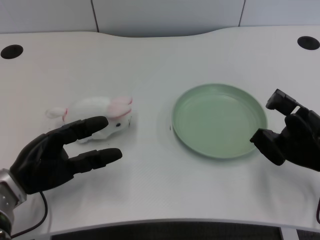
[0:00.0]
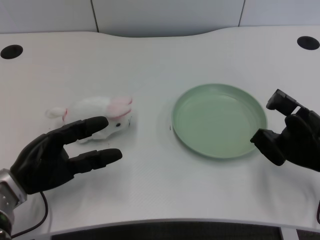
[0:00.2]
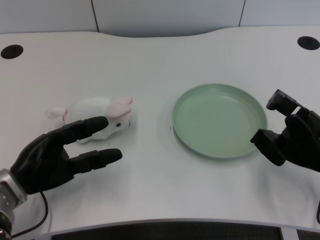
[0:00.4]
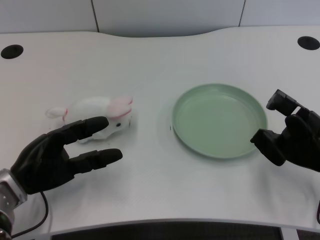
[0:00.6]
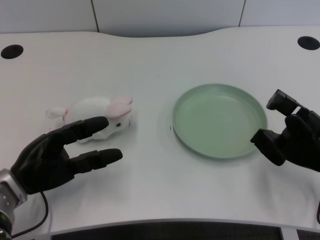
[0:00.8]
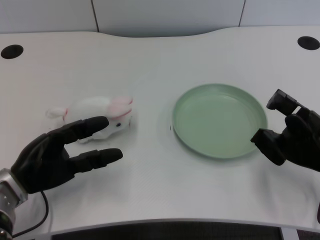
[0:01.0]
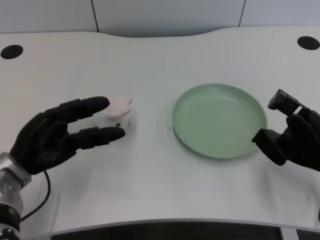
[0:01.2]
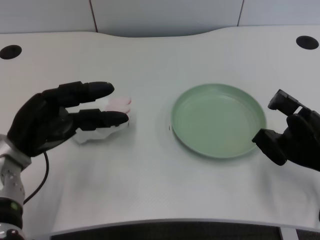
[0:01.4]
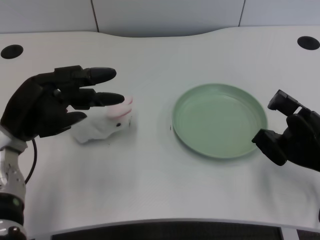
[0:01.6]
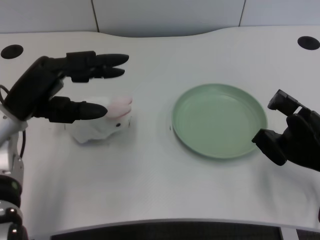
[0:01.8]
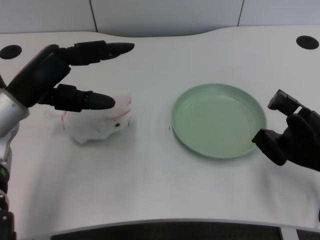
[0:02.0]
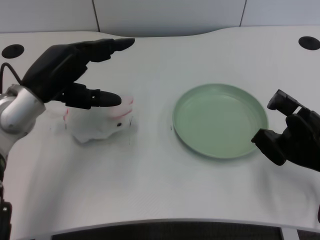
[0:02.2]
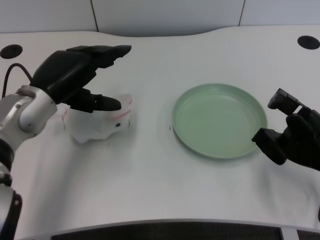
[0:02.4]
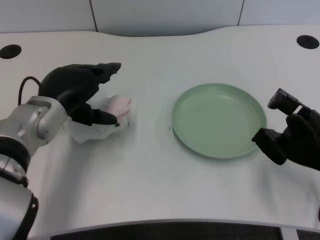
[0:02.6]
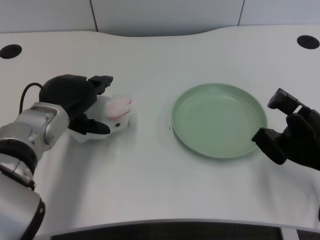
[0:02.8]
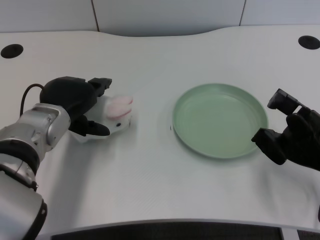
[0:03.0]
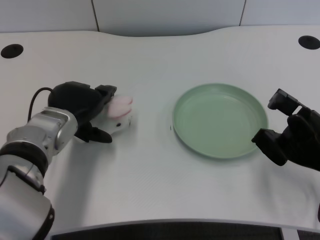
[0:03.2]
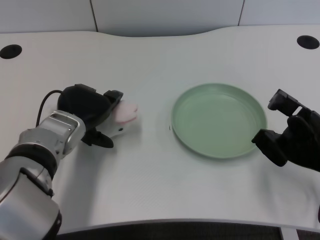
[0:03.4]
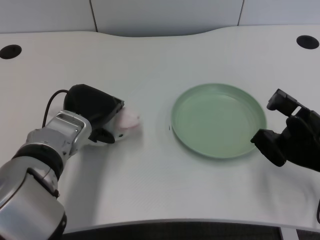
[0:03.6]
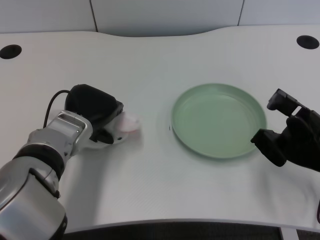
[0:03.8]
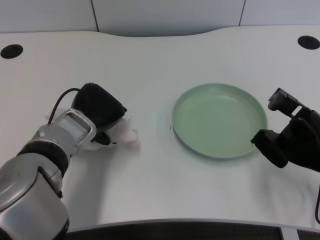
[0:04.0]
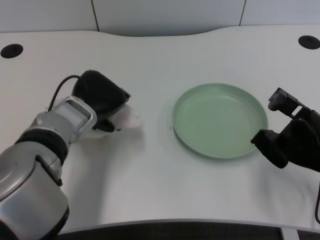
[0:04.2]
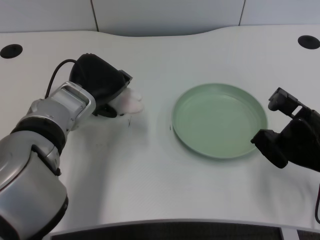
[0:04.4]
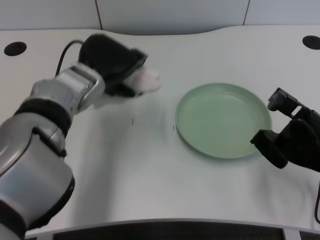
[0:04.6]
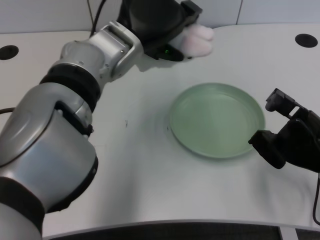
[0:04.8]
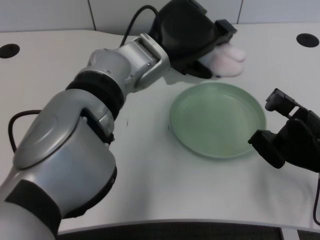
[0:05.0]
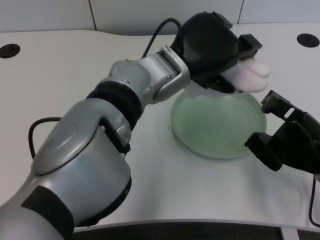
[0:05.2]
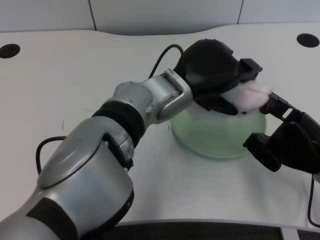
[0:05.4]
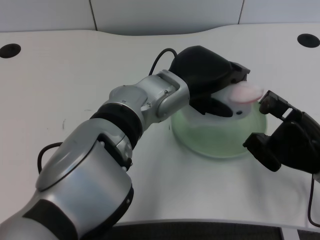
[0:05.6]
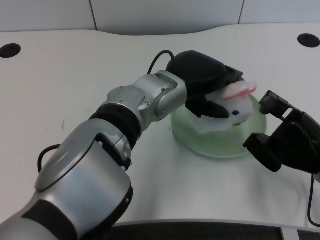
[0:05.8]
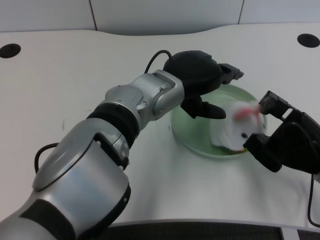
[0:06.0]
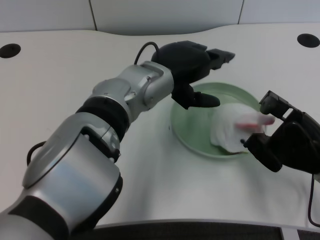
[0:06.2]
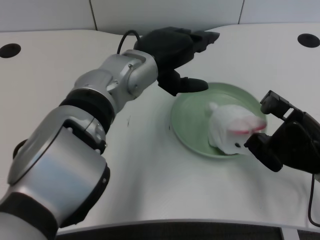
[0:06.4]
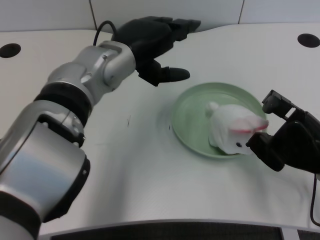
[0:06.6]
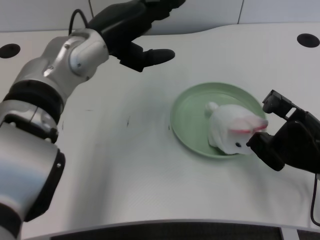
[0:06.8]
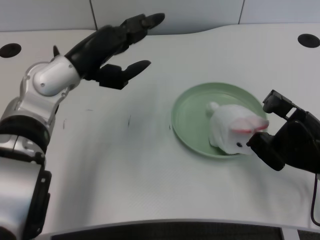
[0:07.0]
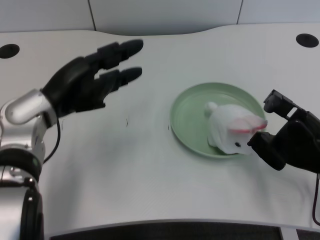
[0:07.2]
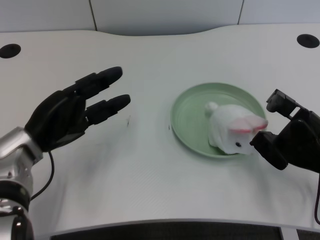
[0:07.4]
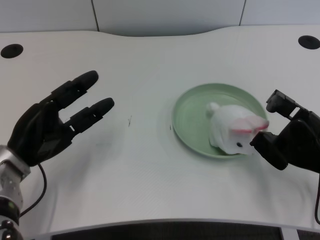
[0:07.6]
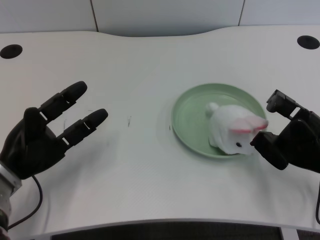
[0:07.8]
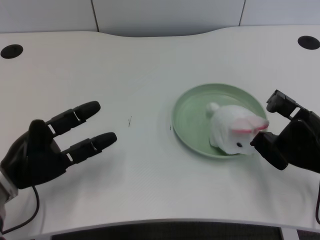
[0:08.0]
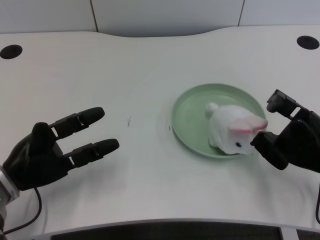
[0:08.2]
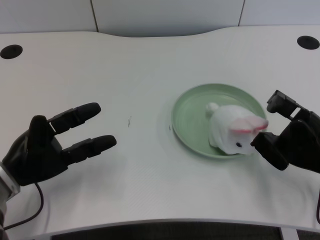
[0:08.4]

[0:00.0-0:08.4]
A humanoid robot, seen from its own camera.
Task of the whole recording: pick up the rabbit doll from the table and place it on the plate.
Step, 0:01.0 to 0:04.2: Grasp the rabbit doll with the left gripper.
Step, 0:04.4 to 0:06.0: Place the rabbit doll into the plate with the left gripper.
0:01.4 to 0:02.8: The left hand shifts approximately 5 cm to the right.
0:04.2 to 0:05.6: The left hand travels to the right and upward by approximately 15 cm.
0:05.6 to 0:07.0: The left hand goes roughly 15 cm to the left.
0:07.0 to 0:08.4: The left hand heads downward, to the left and backward, covering about 20 cm.

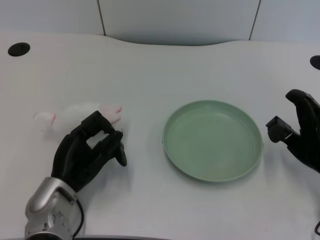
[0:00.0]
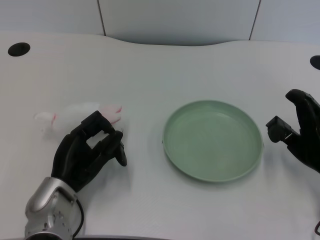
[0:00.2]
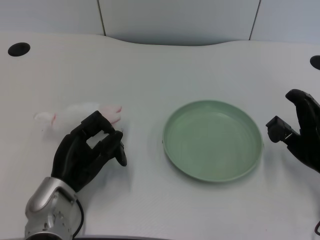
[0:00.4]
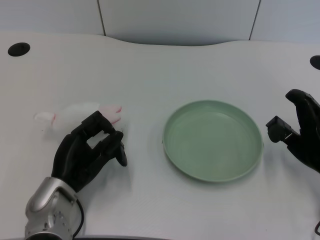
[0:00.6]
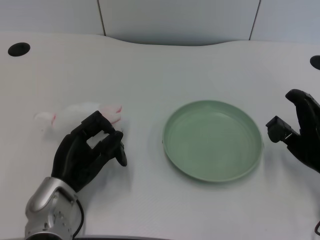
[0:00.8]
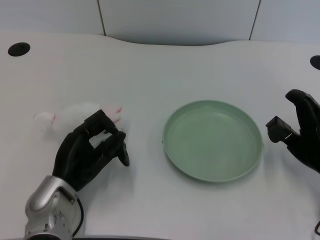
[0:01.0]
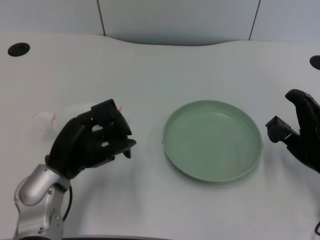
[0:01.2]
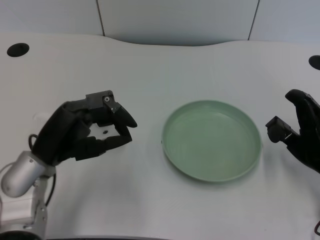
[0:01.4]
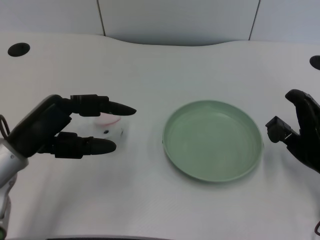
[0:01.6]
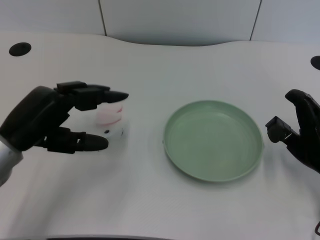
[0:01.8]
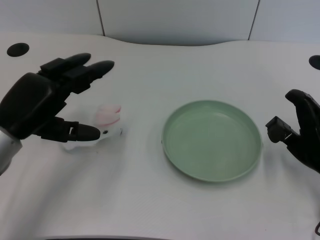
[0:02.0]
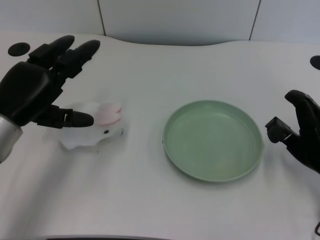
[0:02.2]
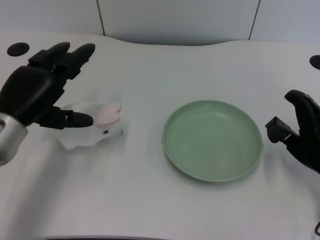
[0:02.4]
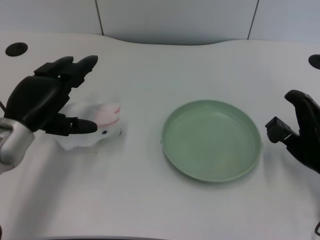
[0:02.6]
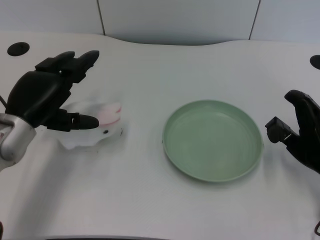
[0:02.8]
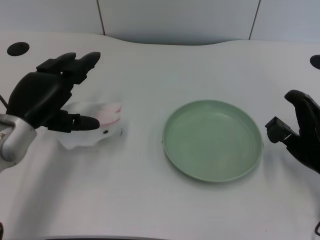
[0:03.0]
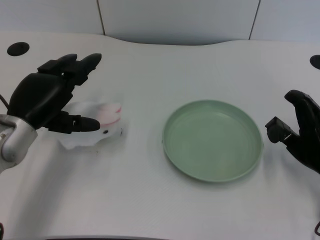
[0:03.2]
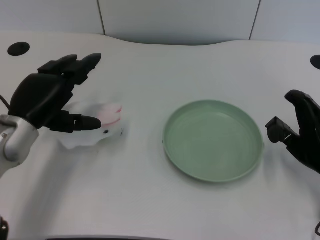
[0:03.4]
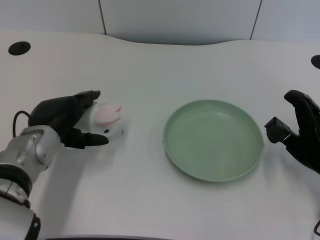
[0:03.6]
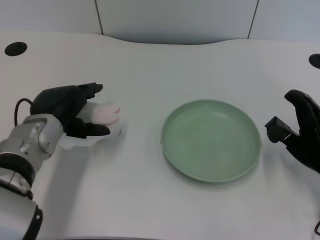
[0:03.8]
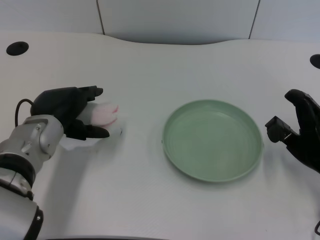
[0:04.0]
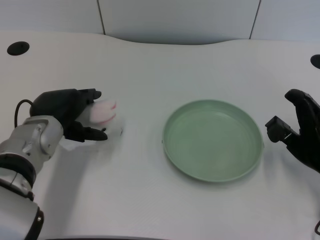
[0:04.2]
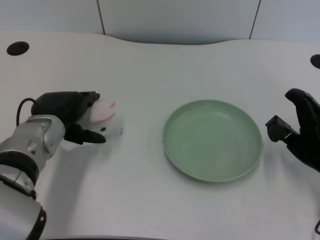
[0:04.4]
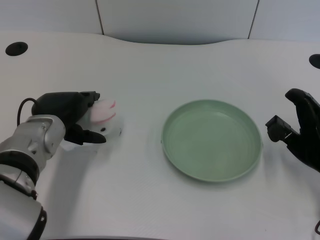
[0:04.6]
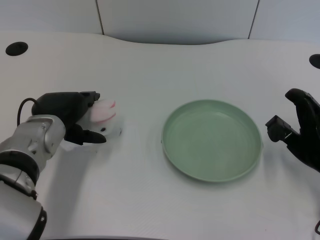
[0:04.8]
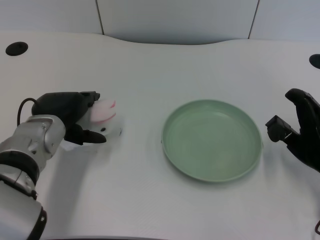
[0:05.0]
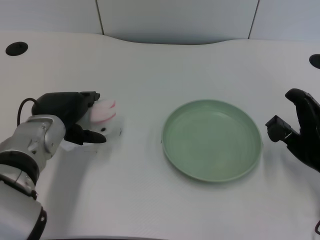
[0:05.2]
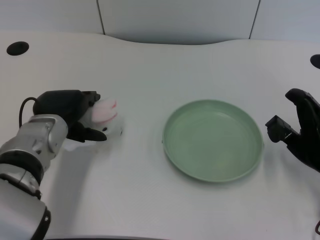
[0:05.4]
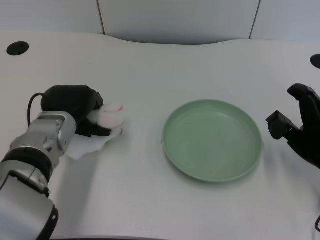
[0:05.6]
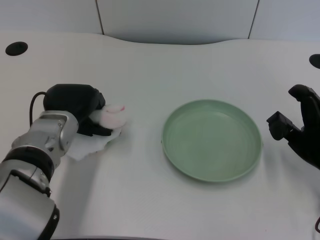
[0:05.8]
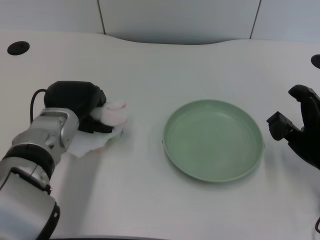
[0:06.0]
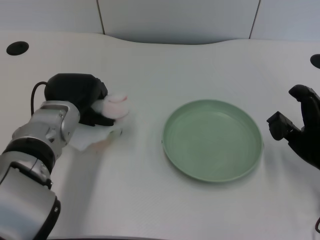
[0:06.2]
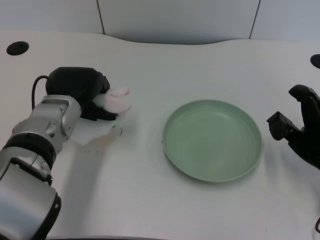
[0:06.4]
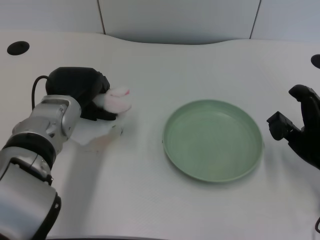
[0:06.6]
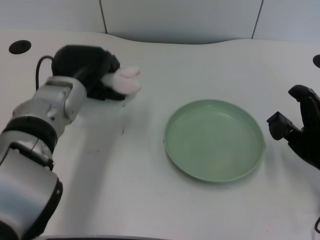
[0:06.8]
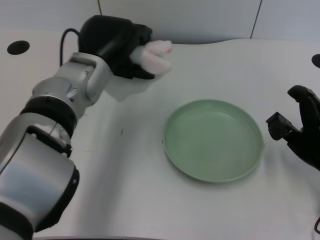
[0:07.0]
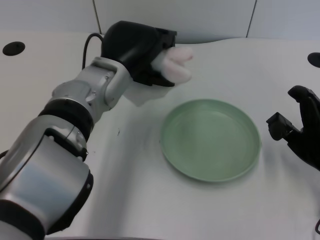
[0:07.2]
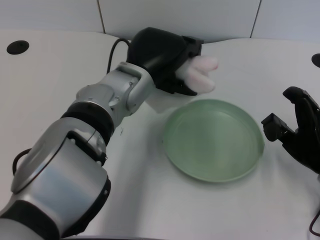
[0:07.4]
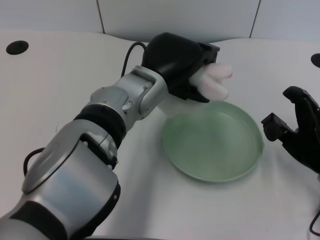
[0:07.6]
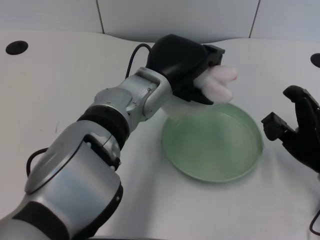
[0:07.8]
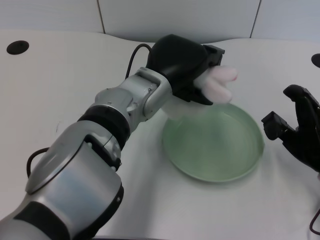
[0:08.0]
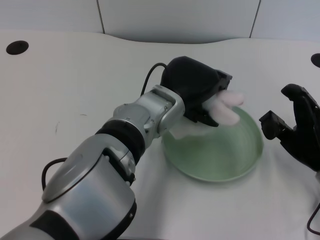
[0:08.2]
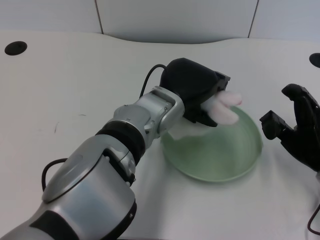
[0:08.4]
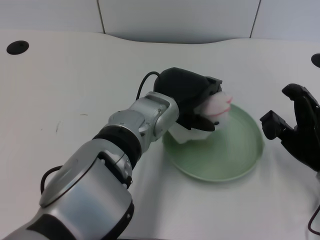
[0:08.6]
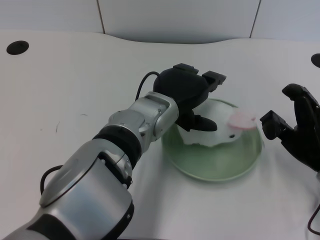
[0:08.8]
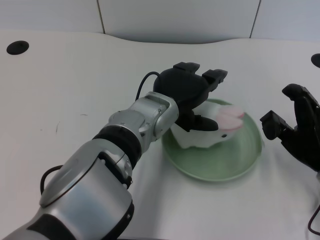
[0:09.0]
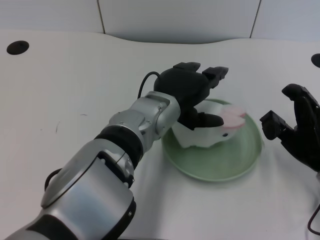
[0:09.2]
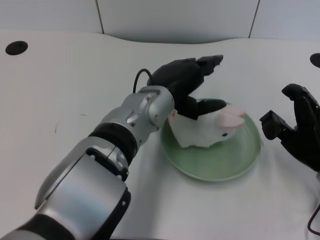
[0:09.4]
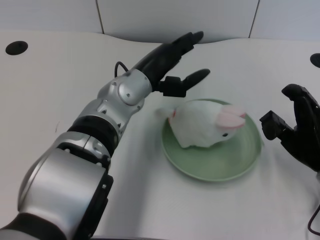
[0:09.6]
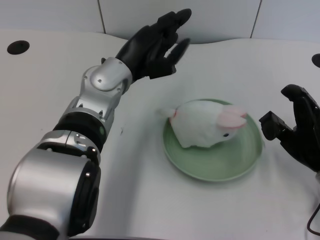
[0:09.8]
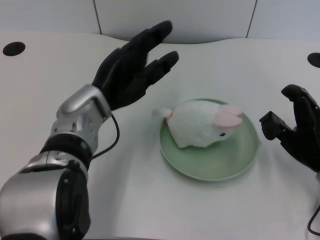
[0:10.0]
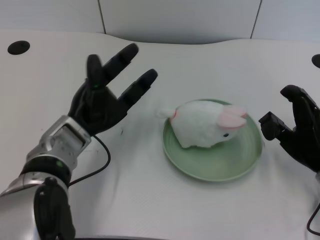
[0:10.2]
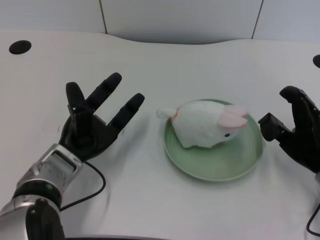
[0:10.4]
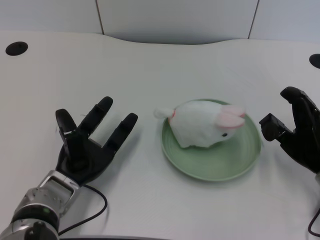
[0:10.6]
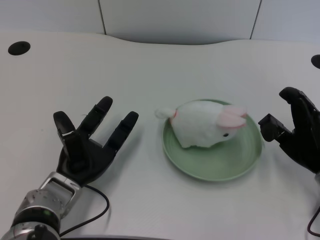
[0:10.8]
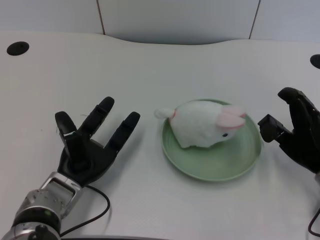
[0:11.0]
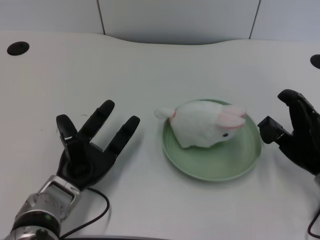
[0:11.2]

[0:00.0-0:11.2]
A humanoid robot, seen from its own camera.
Task of the whole recording: pick up the rabbit doll from the table and place it on the plate.
Step, 0:01.2 to 0:06.2: Grasp the rabbit doll with the left gripper.
Step, 0:06.4 to 0:09.0: Place the rabbit doll into the plate with the left gripper.
0:01.6 to 0:03.2: The left hand is displaced forward by roughly 5 cm.
0:04.8 to 0:06.4: The hands make only small movements.
0:06.4 to 0:08.0: The left hand goes some 15 cm to the right.
0:09.6 to 0:11.2: The left hand is displaced downward, to the left and backward by approximately 20 cm.

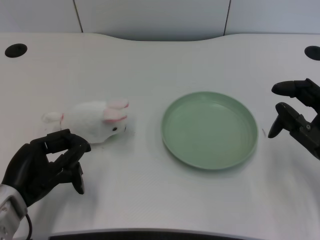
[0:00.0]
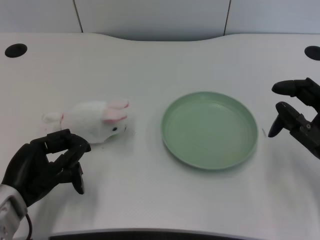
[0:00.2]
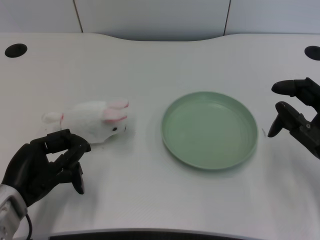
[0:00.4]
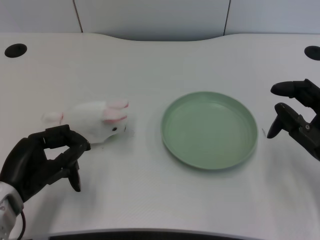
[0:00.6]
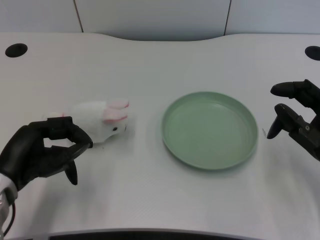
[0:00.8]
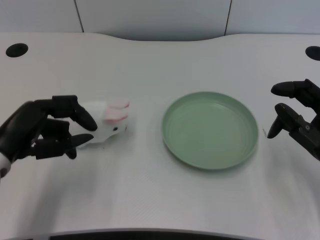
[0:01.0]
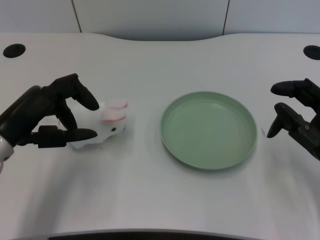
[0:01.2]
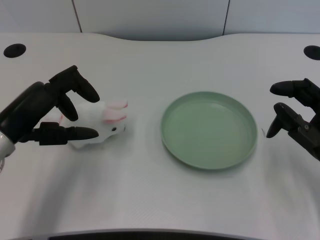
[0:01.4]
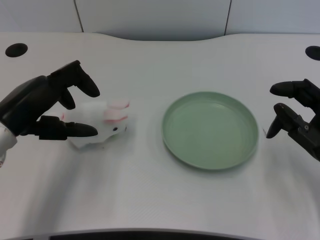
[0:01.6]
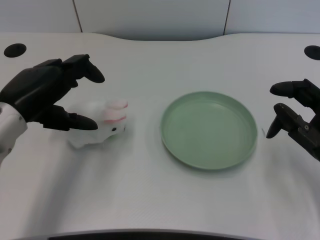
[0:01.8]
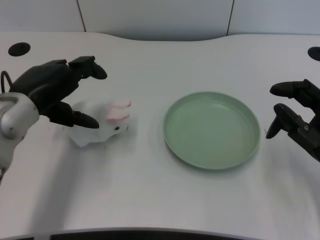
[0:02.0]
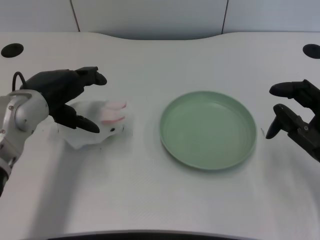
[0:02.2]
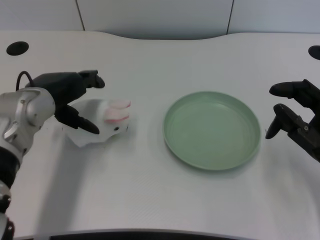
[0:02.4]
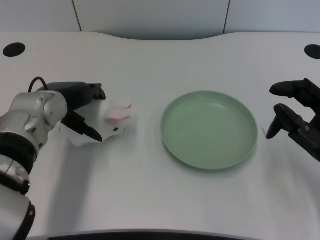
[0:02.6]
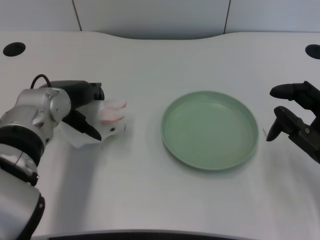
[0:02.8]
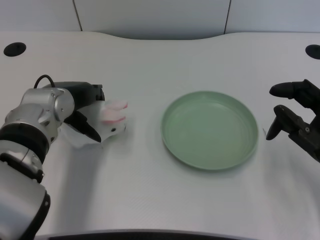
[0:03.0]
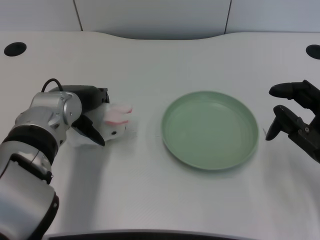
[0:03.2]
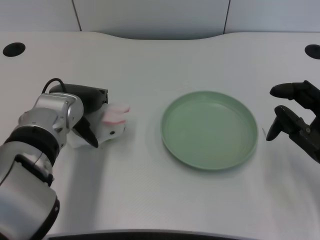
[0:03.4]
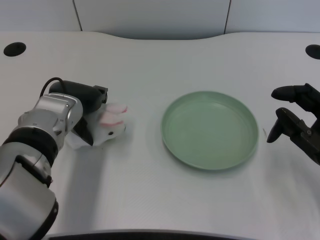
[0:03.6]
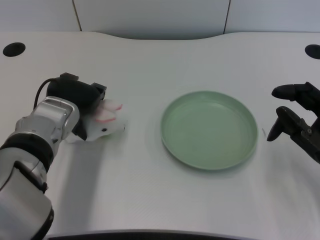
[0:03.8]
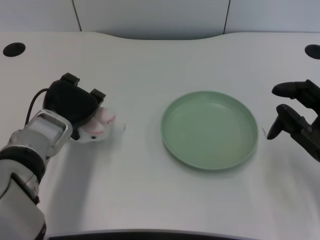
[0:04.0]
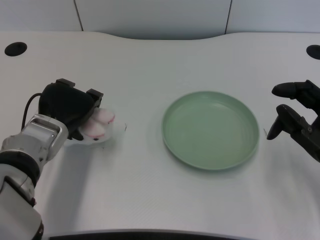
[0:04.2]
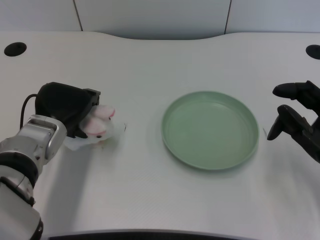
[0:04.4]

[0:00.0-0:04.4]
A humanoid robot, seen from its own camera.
Task of the whole recording: pick up the rabbit doll from the table and place it on the plate.
0:01.4 to 0:03.0: The left hand is displaced forward and to the right by about 10 cm.
0:03.0 to 0:04.4: The left hand ends up approximately 5 cm from where it was.
